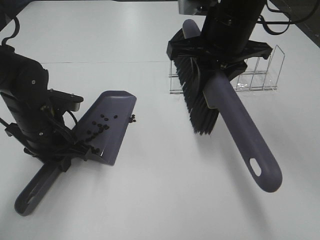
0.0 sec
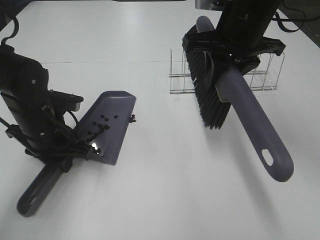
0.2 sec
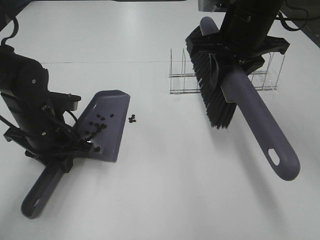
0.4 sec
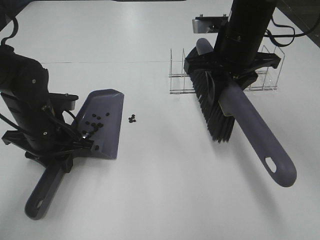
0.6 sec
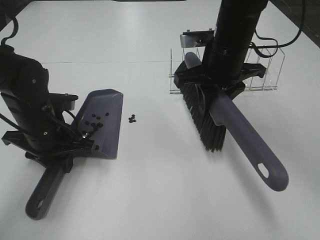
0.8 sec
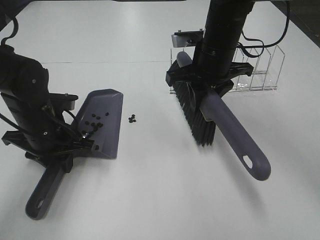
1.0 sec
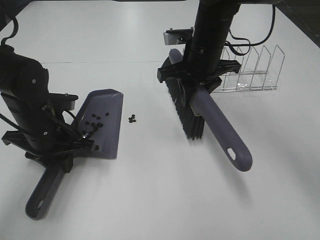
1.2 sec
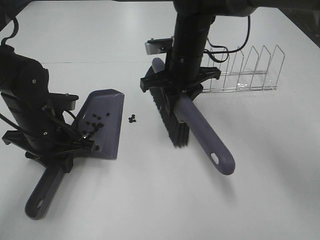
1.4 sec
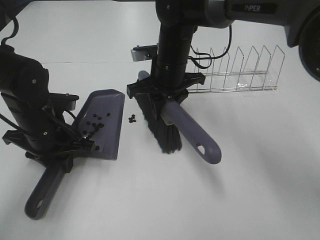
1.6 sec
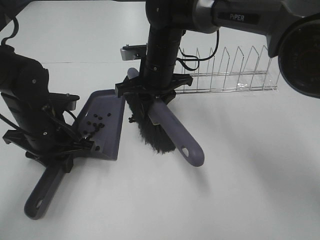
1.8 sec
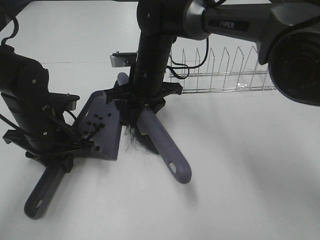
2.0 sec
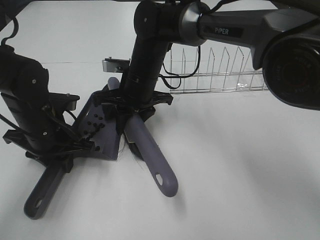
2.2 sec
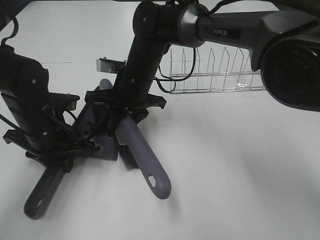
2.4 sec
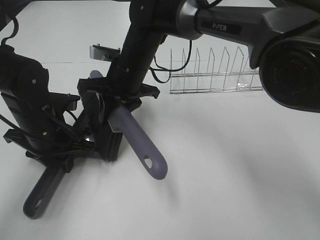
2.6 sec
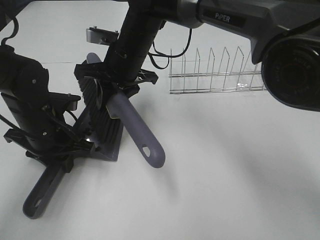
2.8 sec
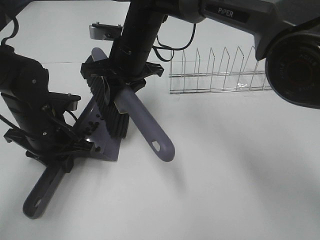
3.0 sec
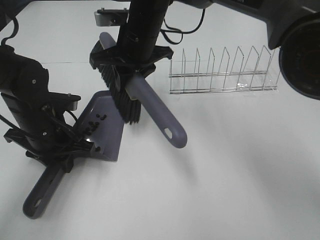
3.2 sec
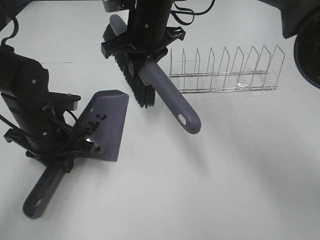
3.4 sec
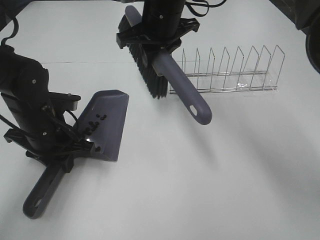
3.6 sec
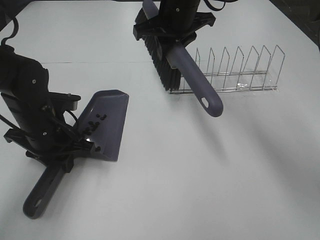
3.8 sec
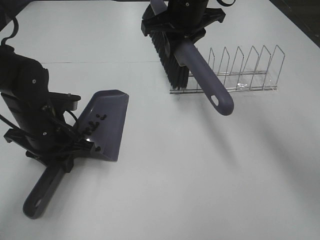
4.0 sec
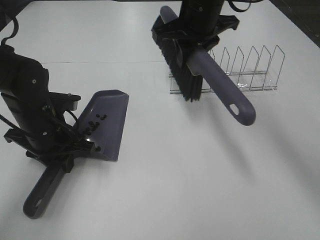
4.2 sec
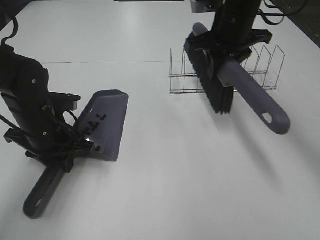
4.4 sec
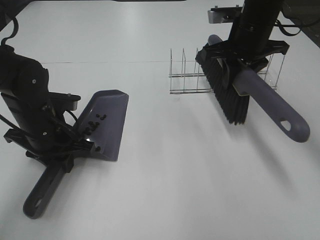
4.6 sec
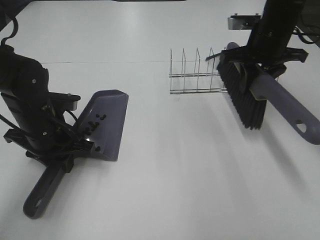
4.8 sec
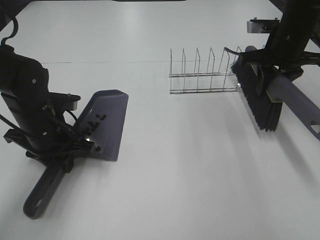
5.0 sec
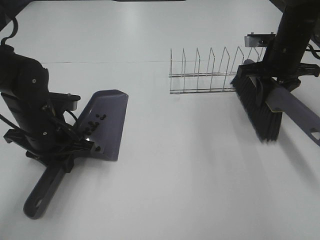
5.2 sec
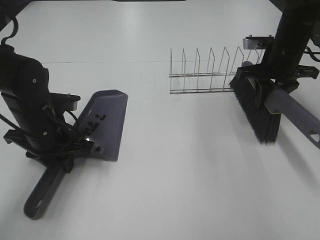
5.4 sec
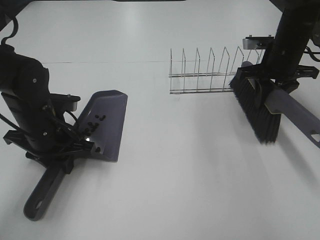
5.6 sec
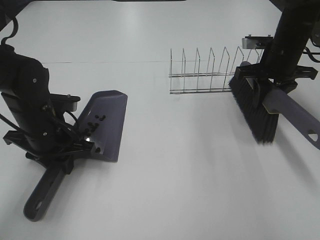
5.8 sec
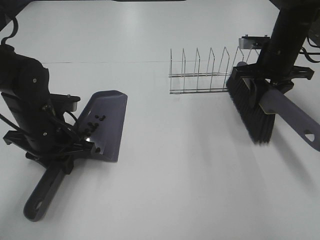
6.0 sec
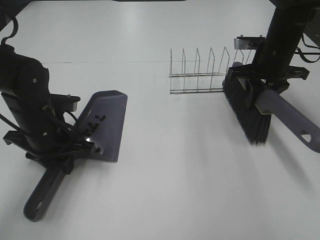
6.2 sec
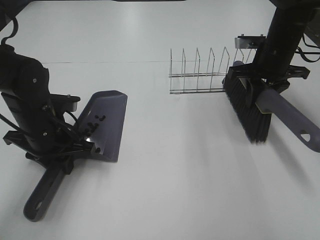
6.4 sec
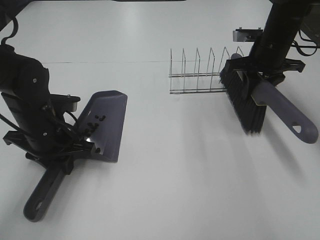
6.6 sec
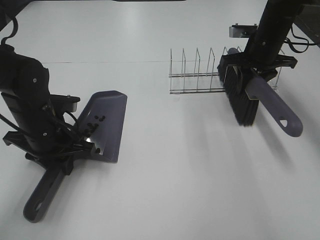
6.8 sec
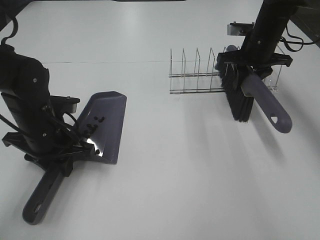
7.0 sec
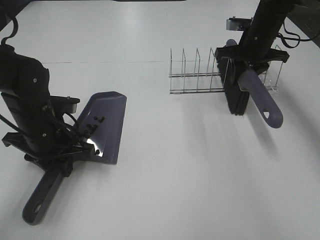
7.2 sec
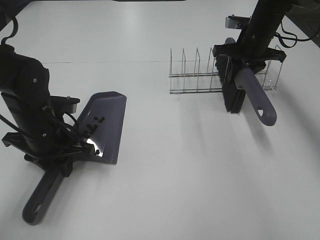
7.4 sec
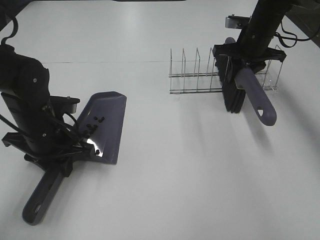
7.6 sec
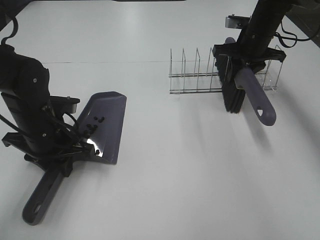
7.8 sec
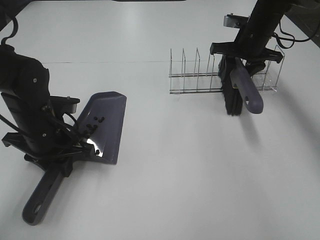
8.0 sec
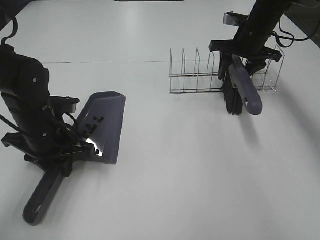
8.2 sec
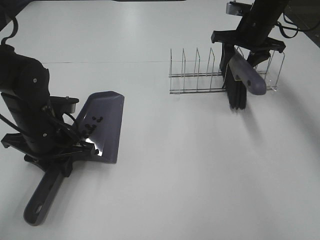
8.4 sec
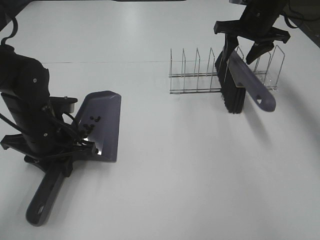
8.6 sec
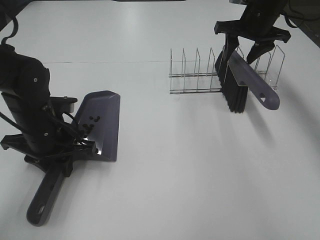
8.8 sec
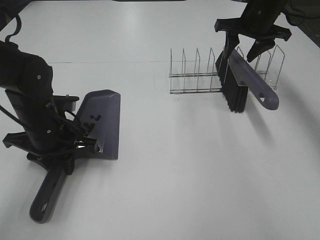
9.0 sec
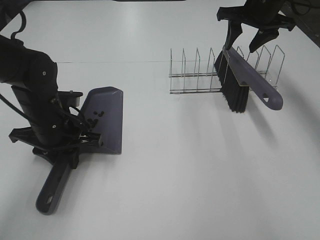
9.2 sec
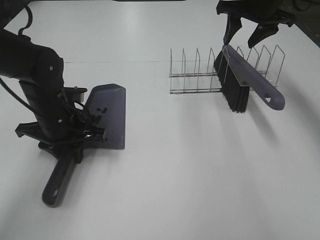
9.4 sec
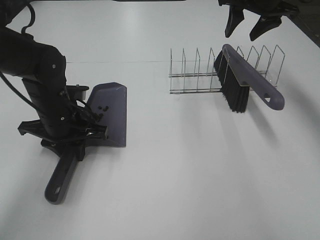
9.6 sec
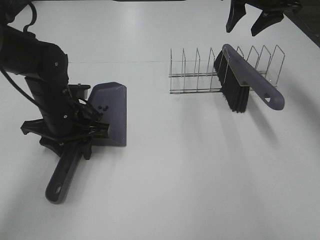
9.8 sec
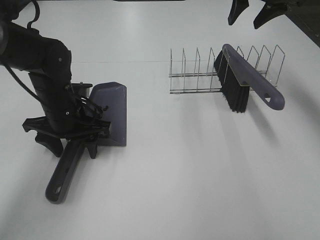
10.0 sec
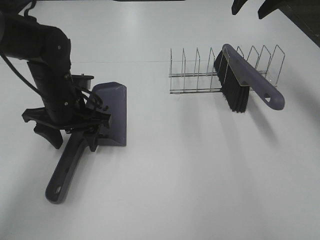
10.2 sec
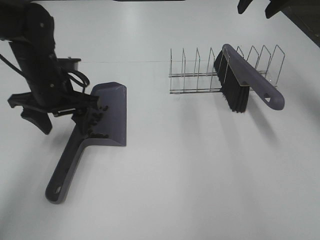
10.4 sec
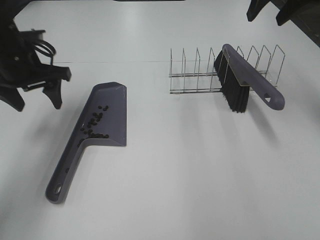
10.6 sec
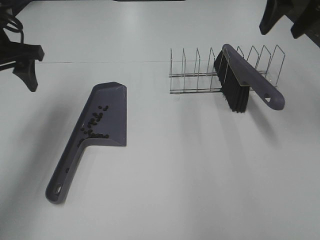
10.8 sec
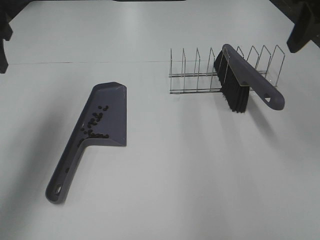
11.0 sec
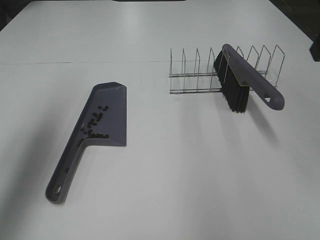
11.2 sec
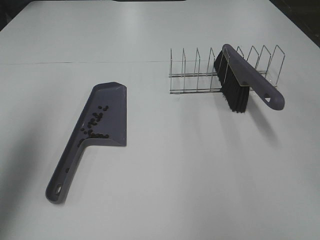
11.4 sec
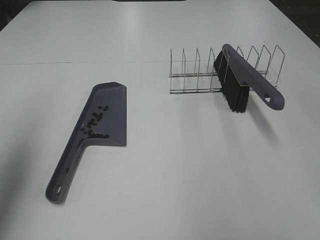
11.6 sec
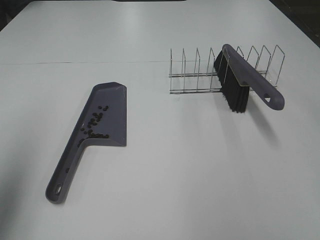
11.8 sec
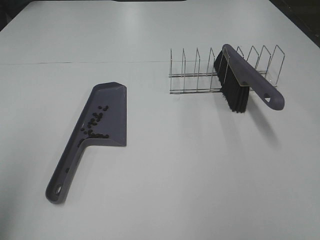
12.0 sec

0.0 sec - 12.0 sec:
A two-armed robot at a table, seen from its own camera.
Task of the whole recording: Sweep Coffee Bean.
Step, 0.0 sec - 3.0 sec: Right hand:sweep the coffee beans into the dustpan.
Step, 3.2 sec - 8.8 sec: Right hand:place the broom on the rack.
Step, 9.0 sec - 10.0 sec: Left hand:place the dustpan on the table.
0.0 sec - 1.6 sec: The right gripper travels downward, to the left and forward by roughly 15 cm.
1.6 sec - 3.0 sec: The right gripper goes approximately 5 cm to the left.
3.0 sec - 4.4 sec: The right gripper shifts roughly 20 cm to the right.
4.4 sec - 6.0 sec: The right gripper is displaced to the right and downward by roughly 10 cm.
6.0 sec - 7.6 sec: The right gripper goes about 5 cm forward.
7.6 sec - 9.0 sec: The right gripper shifts about 5 cm upward, and opens up.
9.0 sec - 10.4 sec: The right gripper travels upward and backward by some 10 cm; the left gripper moves upward and forward, about 10 cm, and opens up.
10.4 sec - 12.0 sec: The right gripper shifts approximately 35 cm backward. Meanwhile the left gripper travels backward, upward and to the left by some 35 cm.

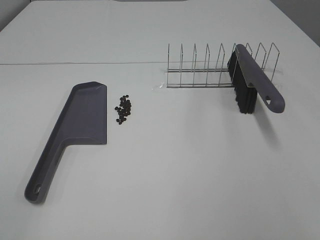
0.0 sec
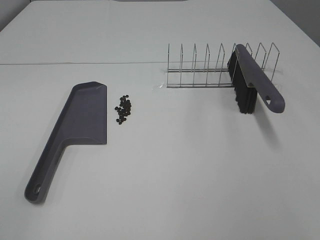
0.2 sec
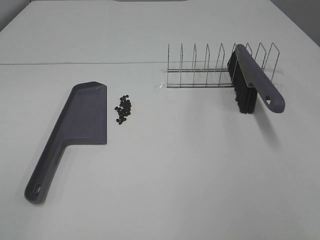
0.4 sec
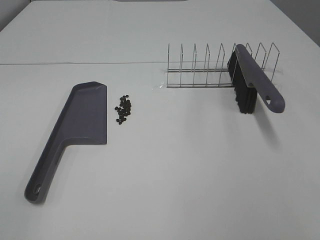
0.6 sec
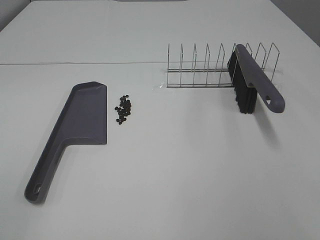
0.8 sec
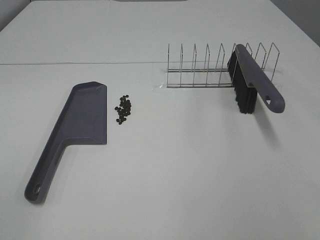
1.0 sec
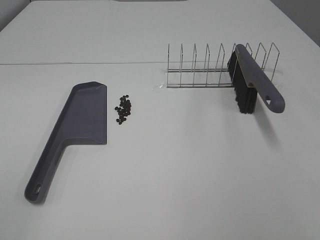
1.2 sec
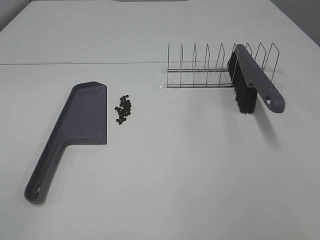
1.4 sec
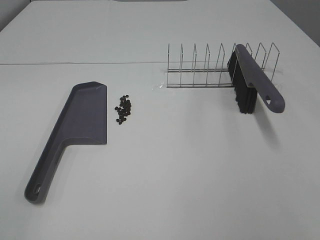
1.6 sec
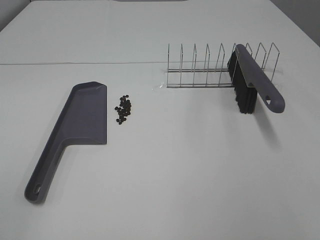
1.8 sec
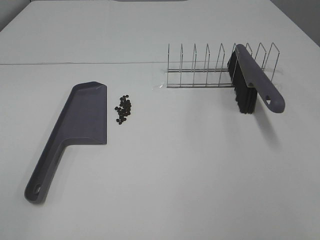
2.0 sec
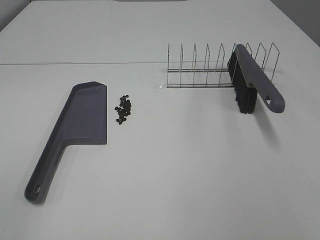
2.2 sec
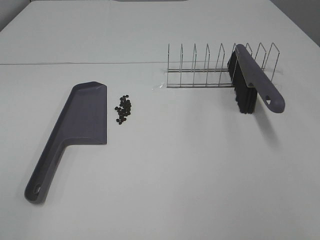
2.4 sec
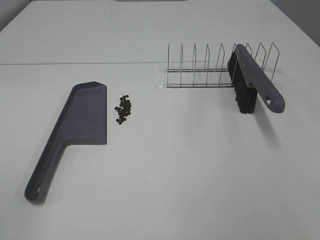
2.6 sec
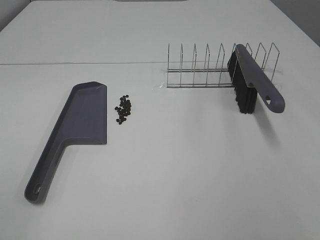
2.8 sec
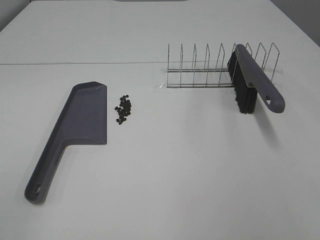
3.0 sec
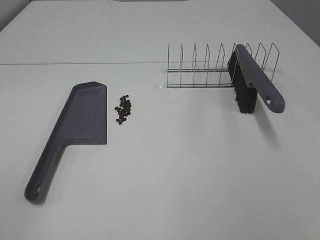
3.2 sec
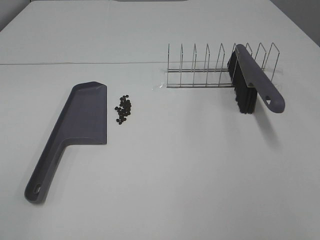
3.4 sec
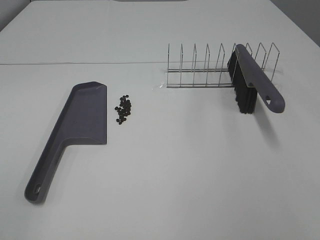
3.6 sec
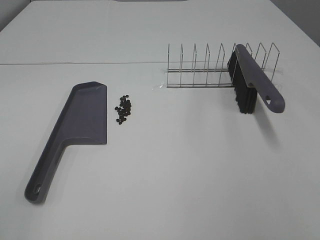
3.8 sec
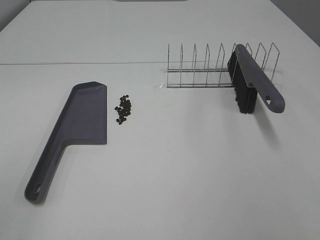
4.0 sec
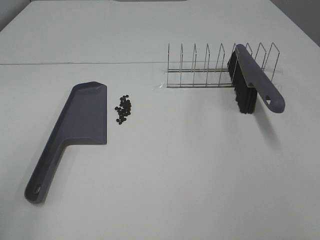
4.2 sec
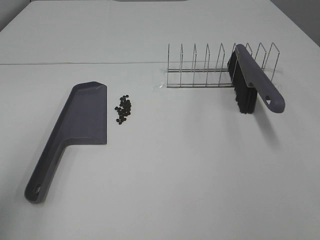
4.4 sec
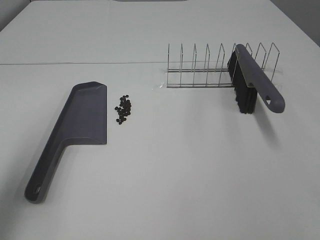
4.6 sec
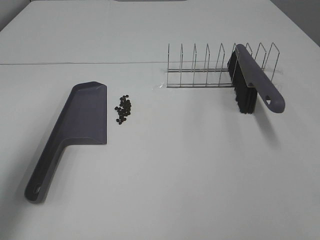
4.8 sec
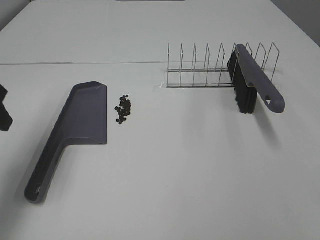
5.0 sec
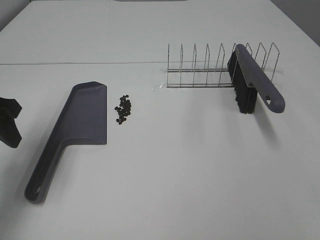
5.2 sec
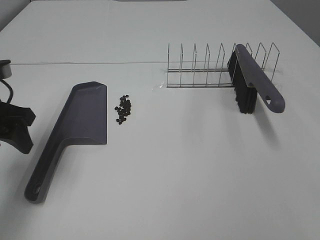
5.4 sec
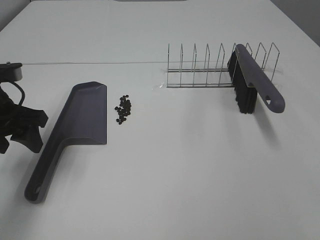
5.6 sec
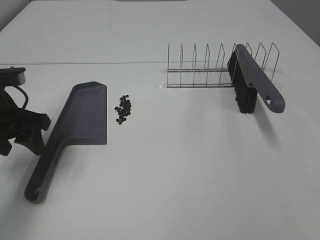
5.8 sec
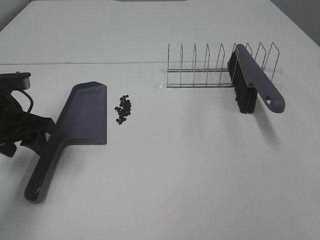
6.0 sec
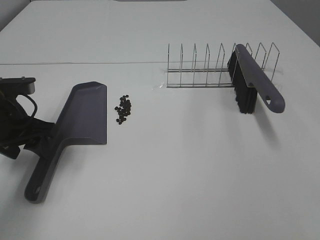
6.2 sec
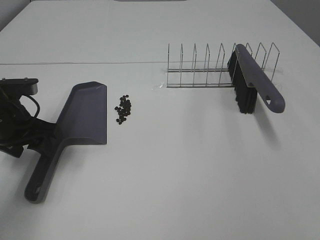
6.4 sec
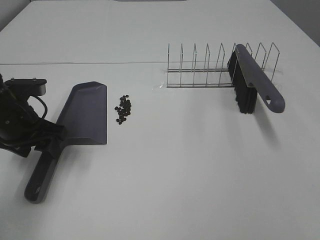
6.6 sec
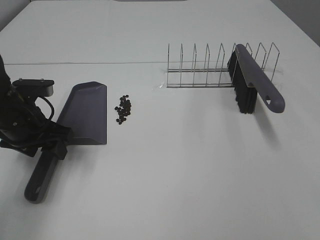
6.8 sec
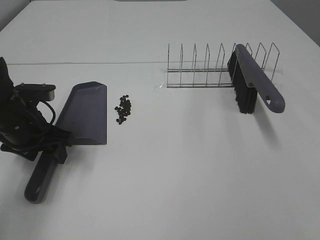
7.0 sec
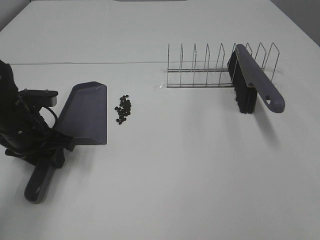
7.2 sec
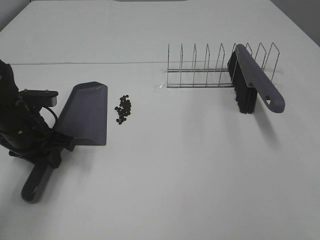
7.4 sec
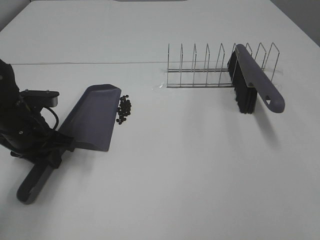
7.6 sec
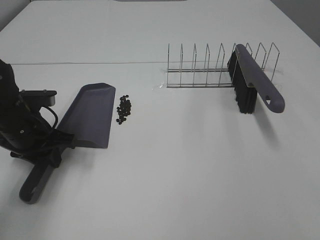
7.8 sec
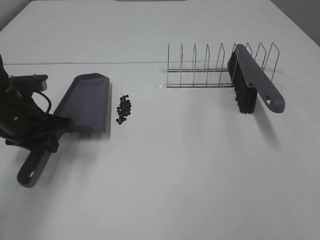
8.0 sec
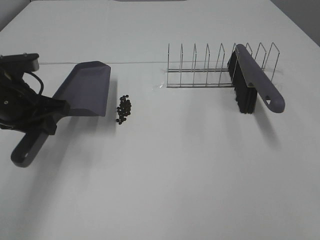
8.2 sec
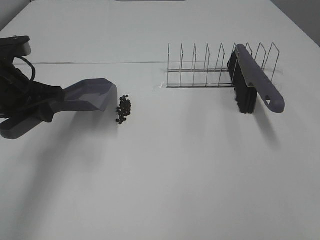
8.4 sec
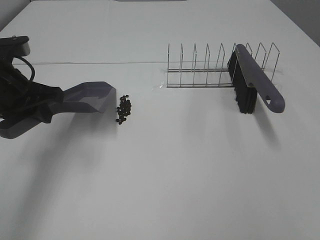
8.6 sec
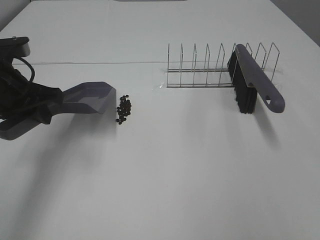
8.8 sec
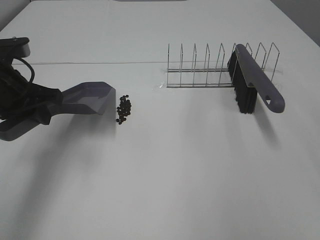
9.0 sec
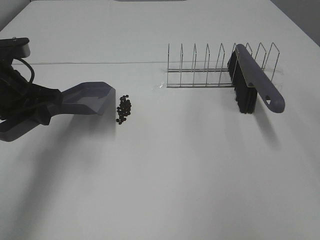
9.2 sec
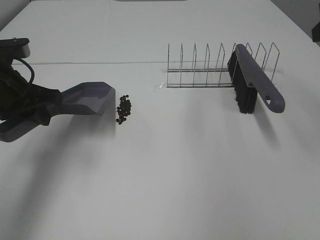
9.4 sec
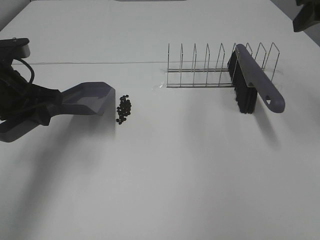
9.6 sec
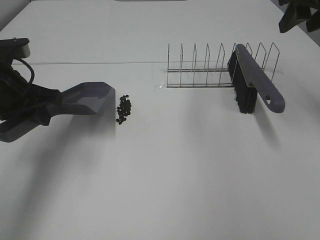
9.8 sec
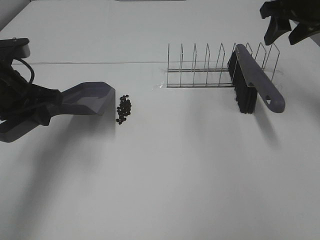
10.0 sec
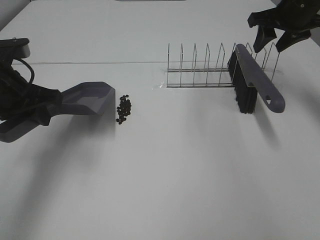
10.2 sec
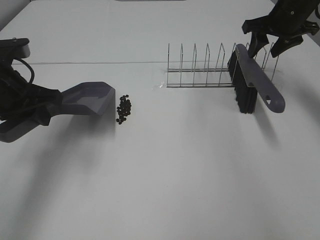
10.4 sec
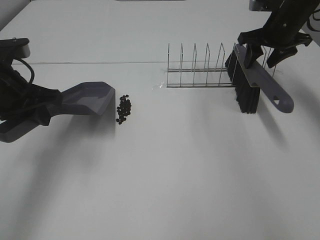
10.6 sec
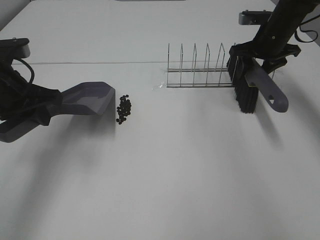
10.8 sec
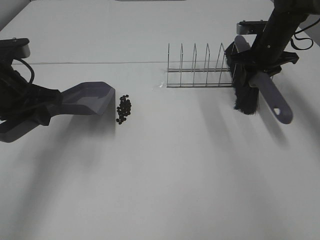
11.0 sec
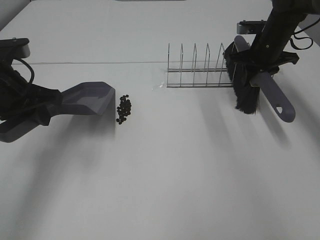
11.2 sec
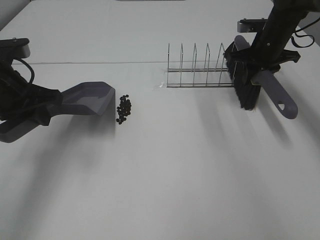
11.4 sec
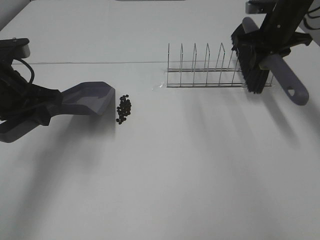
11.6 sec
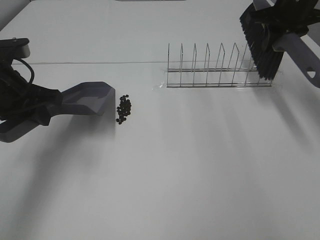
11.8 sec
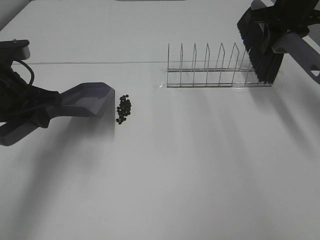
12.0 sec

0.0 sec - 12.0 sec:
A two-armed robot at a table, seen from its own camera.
Task of the whole recording: Sweep Coffee Bean.
Step, 0.0 sec - 7.4 sec: Left hand: grab the dustpan.
Step, 8.4 sec - 10.8 sec: Right hand:grab the broom.
0.0 sec - 3.0 sec: The two grippers keep their place.
3.0 sec - 4.4 sec: The left gripper is displaced forward by about 10 cm.
4.4 sec - 6.0 sec: The left gripper heads forward and downward, covering approximately 25 cm.
6.0 sec - 7.6 sec: The left gripper moves about 5 cm, and closes up.
7.6 sec - 9.0 sec: The left gripper moves upward, some 10 cm.
9.0 sec - 10.4 sec: The right gripper shifts roughly 35 cm forward.
10.4 sec - 12.0 sec: The right gripper moves some 5 cm, and closes up.
